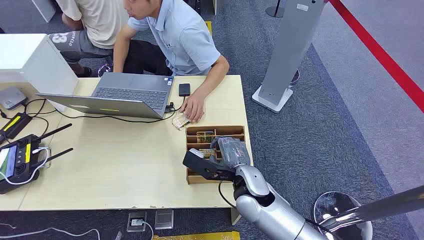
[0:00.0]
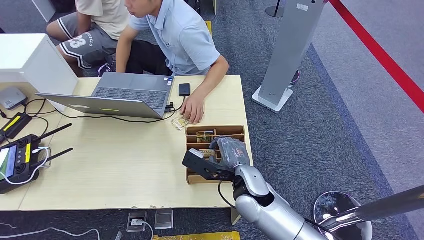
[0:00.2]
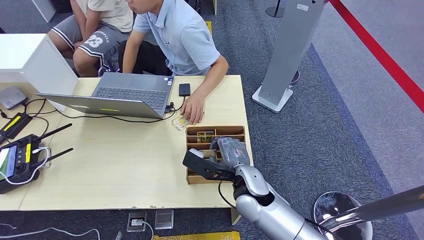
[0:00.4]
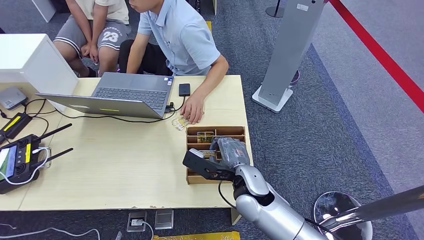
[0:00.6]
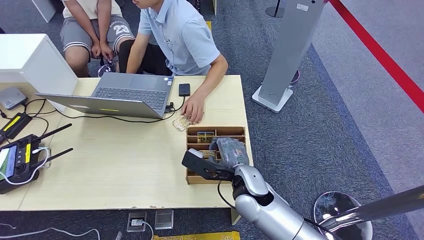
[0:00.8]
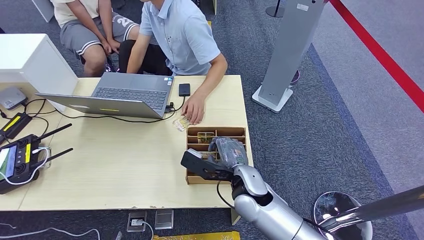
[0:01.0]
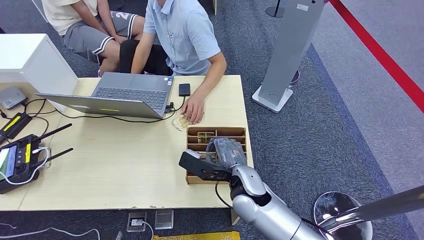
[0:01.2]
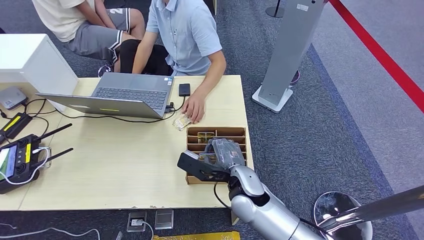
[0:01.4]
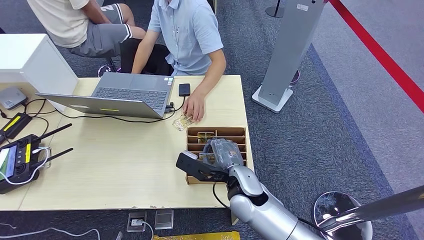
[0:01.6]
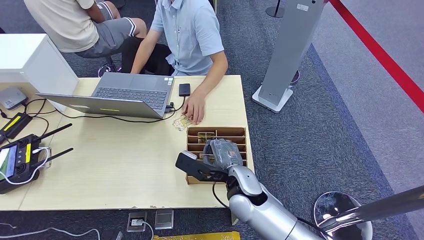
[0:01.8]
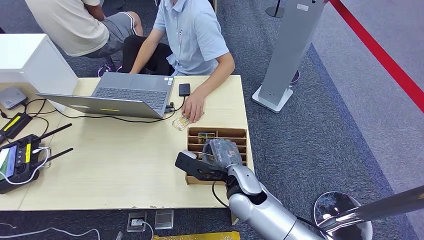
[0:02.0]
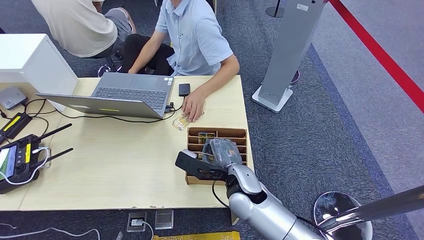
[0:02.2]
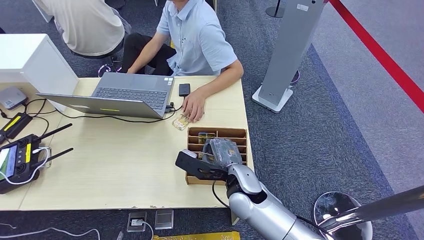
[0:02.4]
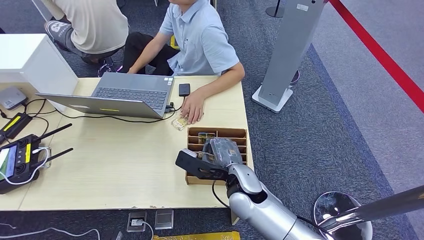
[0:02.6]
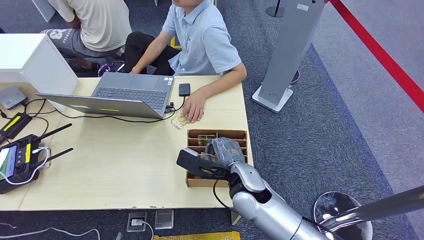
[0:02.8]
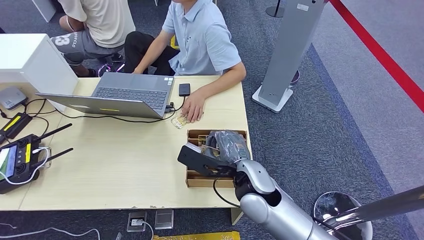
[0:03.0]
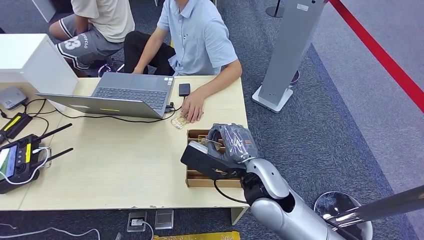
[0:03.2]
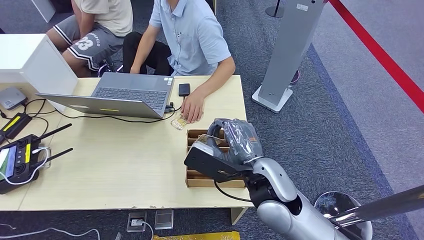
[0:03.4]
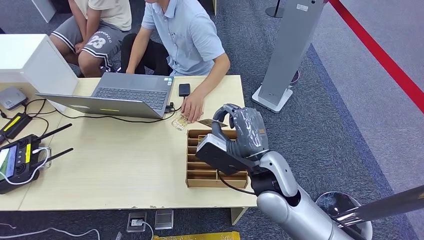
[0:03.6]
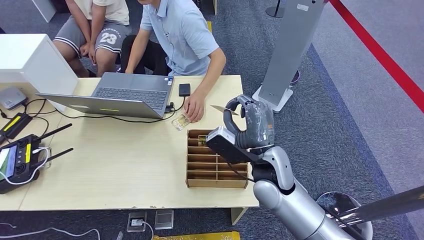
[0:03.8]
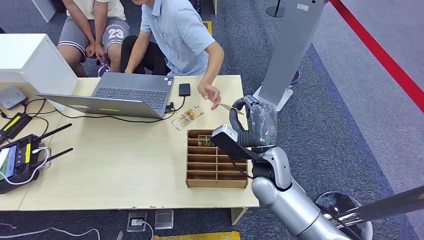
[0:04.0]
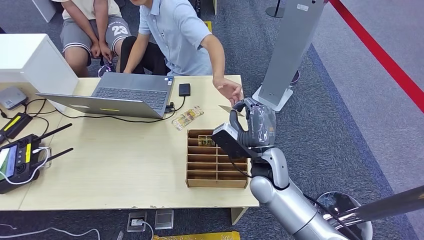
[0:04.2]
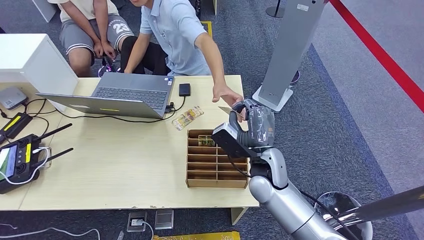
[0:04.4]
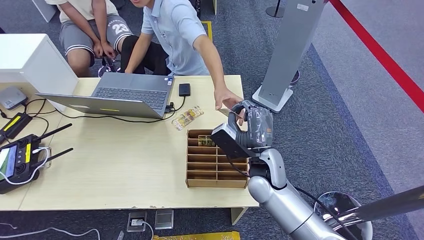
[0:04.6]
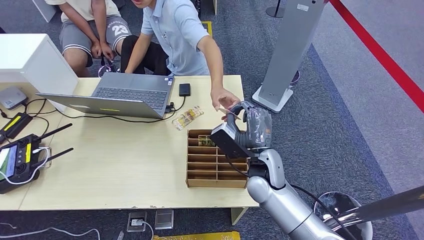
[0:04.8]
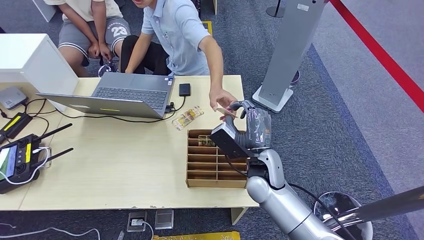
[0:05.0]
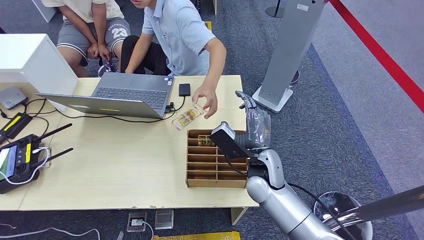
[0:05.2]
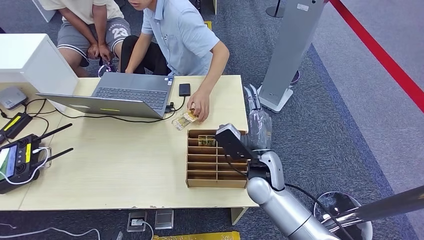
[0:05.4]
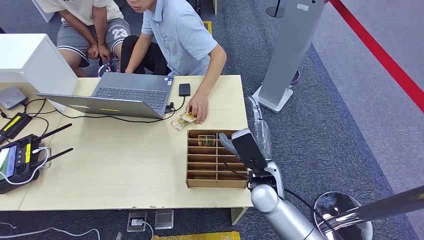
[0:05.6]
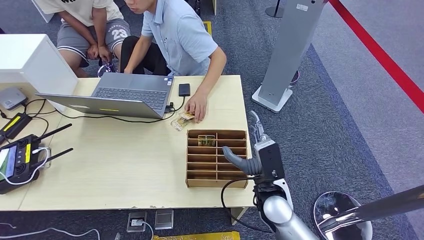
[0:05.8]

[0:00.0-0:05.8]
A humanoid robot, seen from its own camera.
Task of the whole recording: Pick up the card and hand it to the target person.
Step, 0:00.0 to 0:03.4: Pick up the key card from the card box.
Step, 0:03.6 to 0:05.8: Hand the key card to the target.
0:01.4 to 0:02.8: The hands move only a little.
0:02.8 to 0:04.4: The right hand is displaced to the right by approximately 5 cm, and moves roughly 10 cm upward and comes back.
0:04.4 to 0:05.8: The right hand moves backward, approximately 5 cm.
